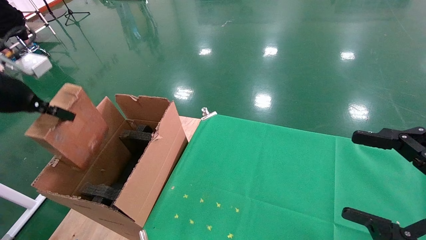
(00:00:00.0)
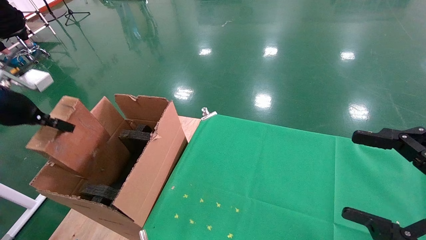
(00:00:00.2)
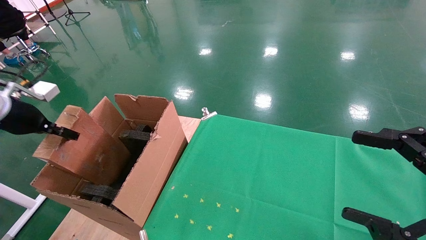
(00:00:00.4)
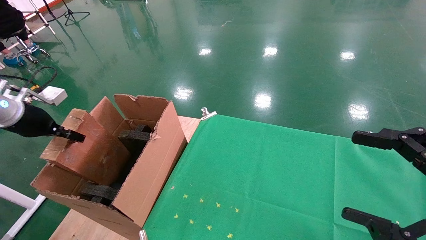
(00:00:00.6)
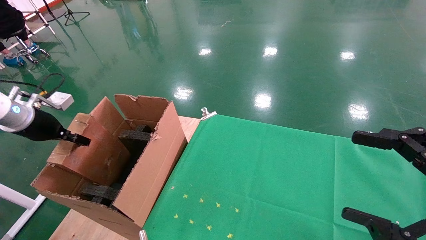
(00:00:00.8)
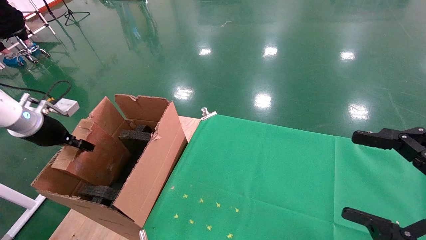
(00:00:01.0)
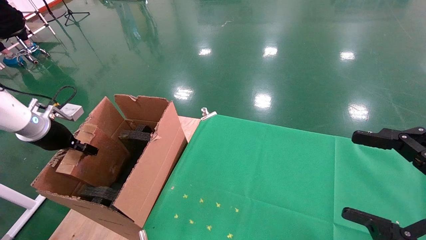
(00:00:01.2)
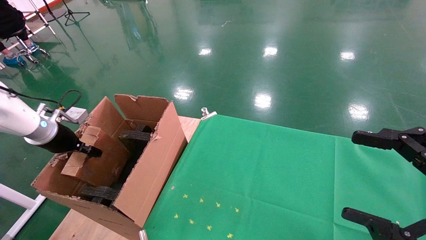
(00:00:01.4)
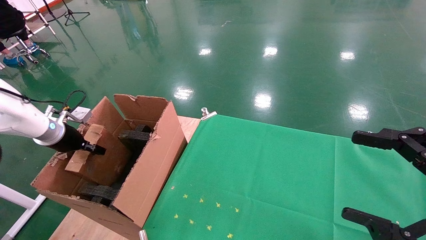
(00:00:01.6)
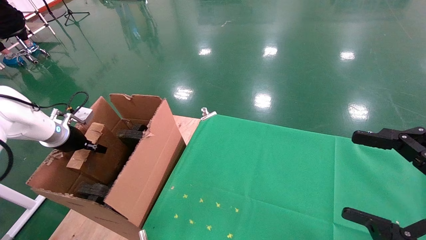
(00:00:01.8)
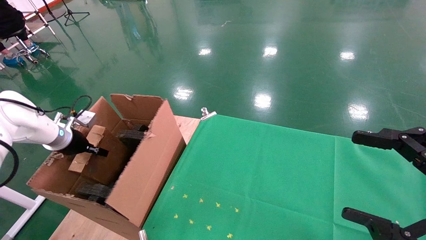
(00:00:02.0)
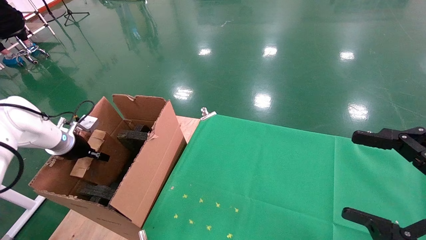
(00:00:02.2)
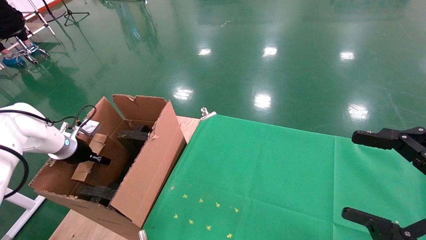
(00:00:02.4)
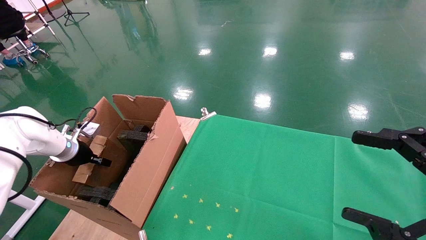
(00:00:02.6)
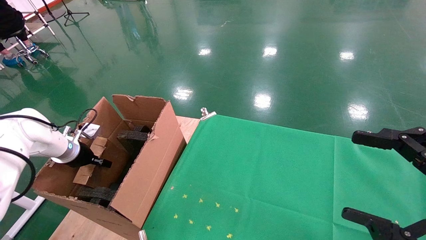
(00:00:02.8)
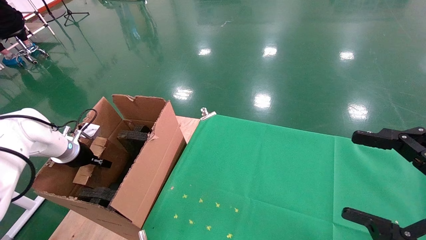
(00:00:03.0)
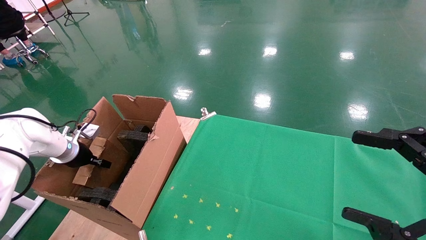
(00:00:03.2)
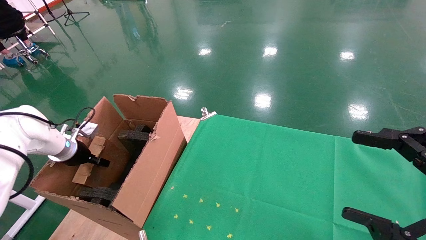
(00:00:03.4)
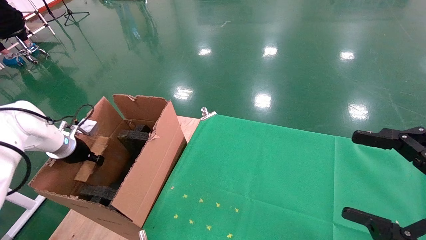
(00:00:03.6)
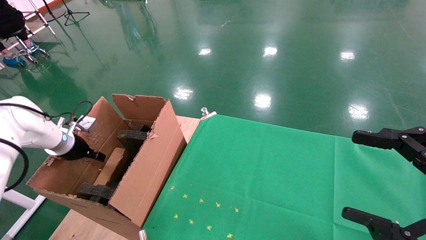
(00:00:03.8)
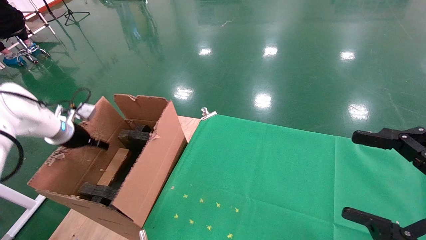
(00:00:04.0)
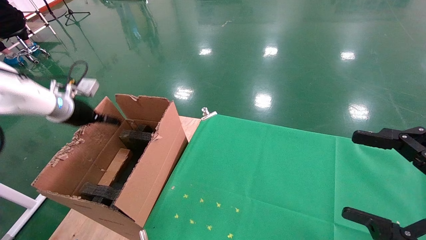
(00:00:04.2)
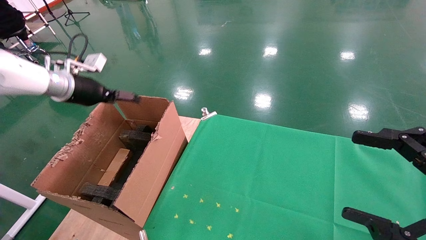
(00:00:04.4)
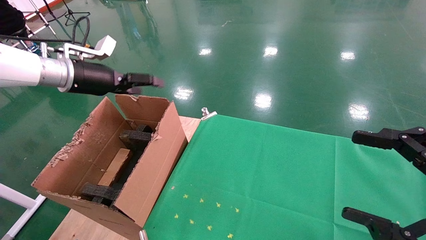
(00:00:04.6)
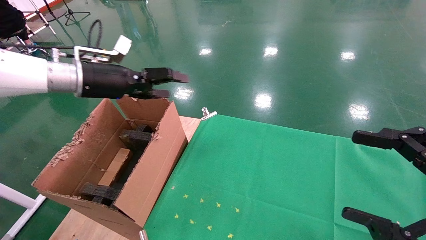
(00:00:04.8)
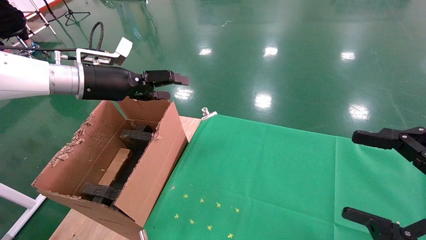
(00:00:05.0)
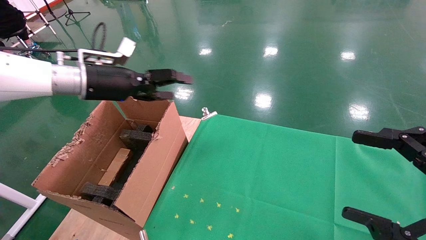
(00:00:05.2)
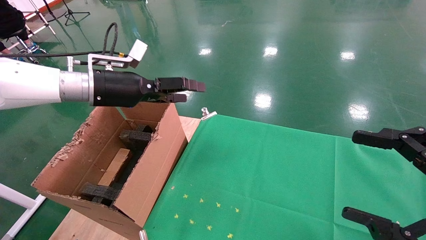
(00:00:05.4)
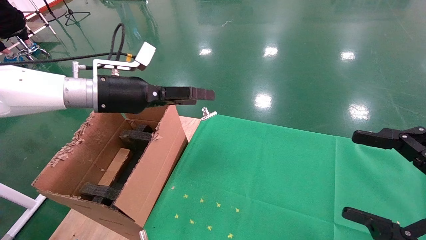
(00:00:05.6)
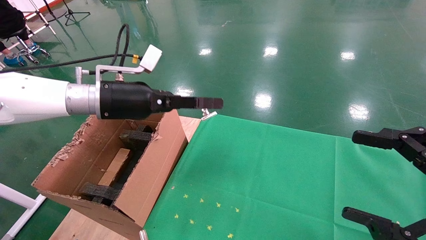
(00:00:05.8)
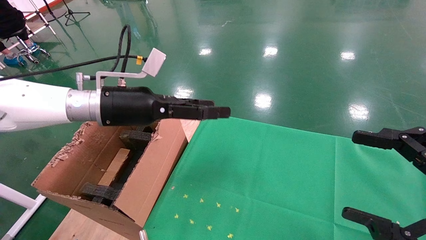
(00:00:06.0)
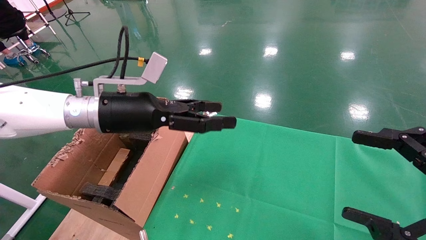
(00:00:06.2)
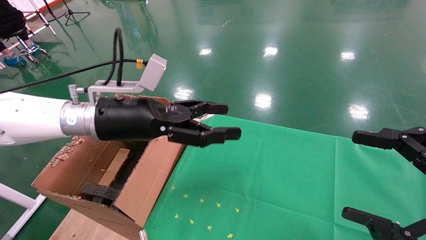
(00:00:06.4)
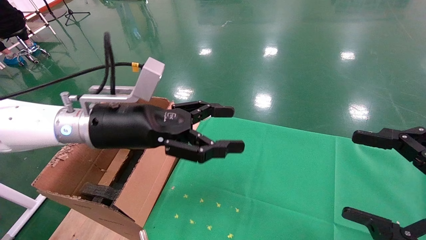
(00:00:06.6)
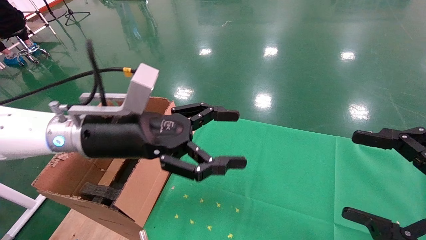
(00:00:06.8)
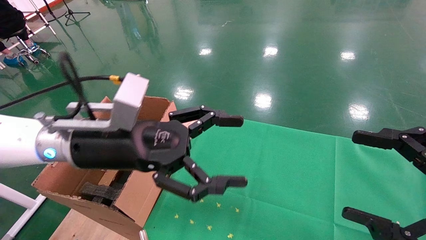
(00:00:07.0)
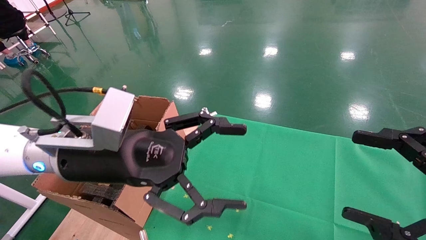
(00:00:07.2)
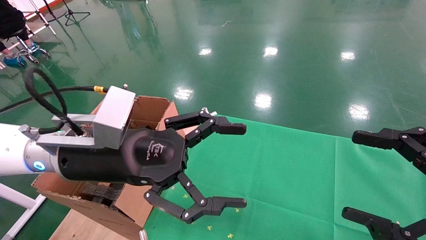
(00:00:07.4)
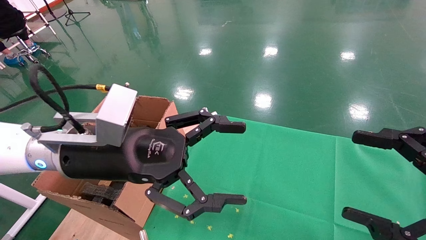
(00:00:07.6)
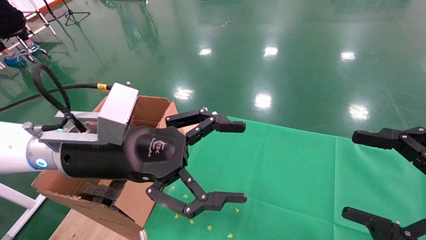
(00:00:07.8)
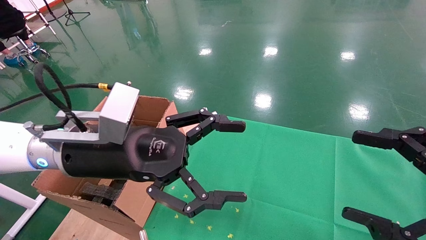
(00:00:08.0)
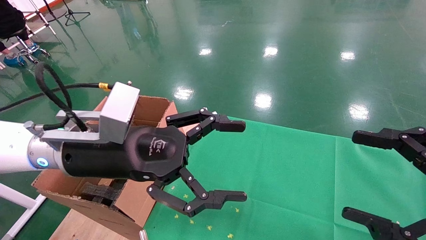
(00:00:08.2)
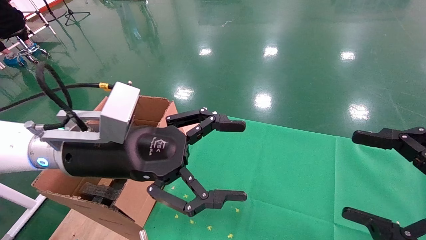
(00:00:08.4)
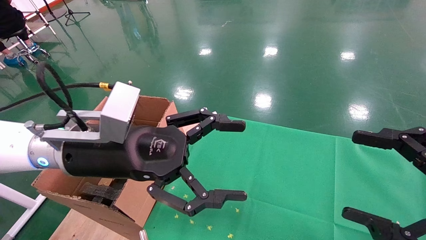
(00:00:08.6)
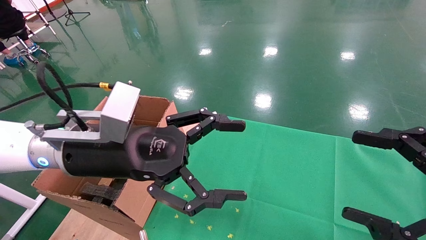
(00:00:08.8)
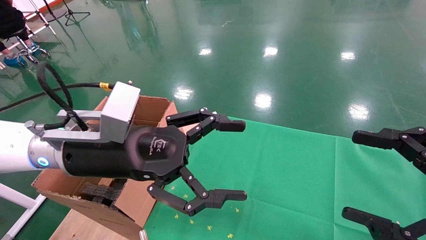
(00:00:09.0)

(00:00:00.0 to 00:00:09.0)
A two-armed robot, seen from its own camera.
Task of the whole recording: using a robotic arm to pick up a cardboard box and palace it the carton.
Step, 00:00:00.0 - 00:00:04.2: Place the mouse and the power cord paper box into the container.
00:00:00.0 - 00:00:01.6: The left gripper goes about 20 cm downward and forward.
00:00:01.6 - 00:00:03.0: The left gripper shifts approximately 5 cm downward.
00:00:03.0 - 00:00:04.4: The left gripper is displaced upward and to the right by roughly 20 cm, and opens.
00:00:04.4 - 00:00:06.0: The left gripper moves to the right and backward, roughly 20 cm.
00:00:06.0 - 00:00:07.6: The left gripper shifts about 10 cm backward.
00:00:07.6 - 00:00:09.0: Neither gripper changes place.
